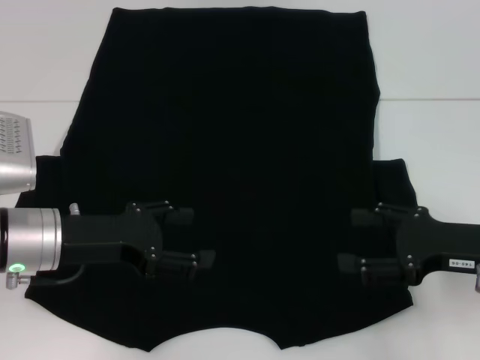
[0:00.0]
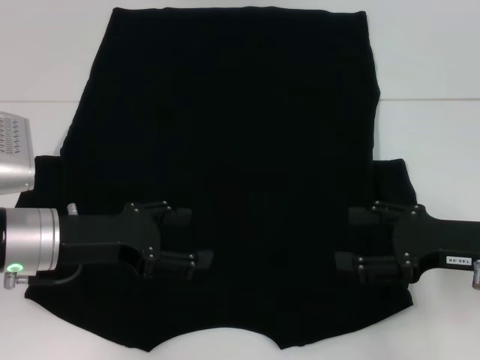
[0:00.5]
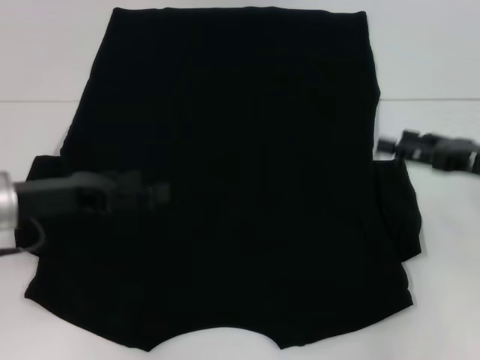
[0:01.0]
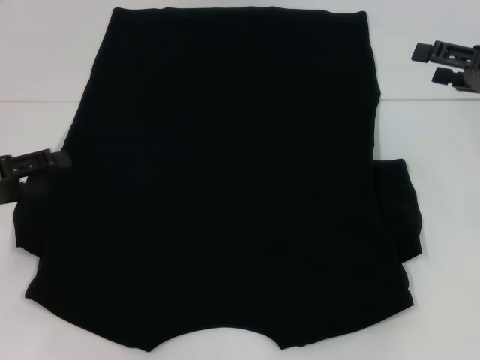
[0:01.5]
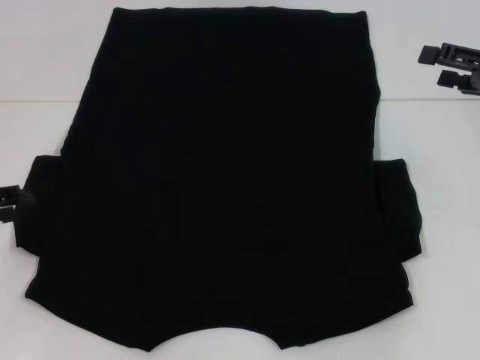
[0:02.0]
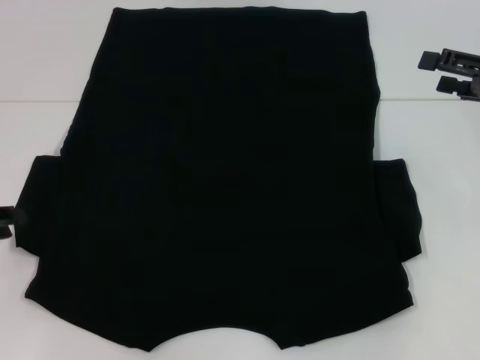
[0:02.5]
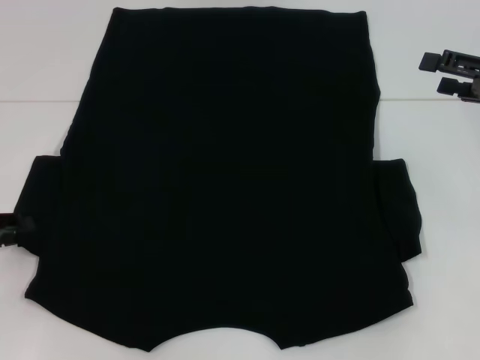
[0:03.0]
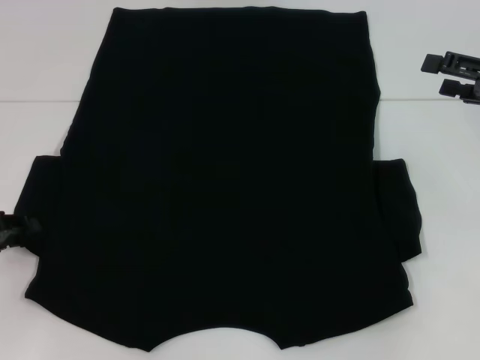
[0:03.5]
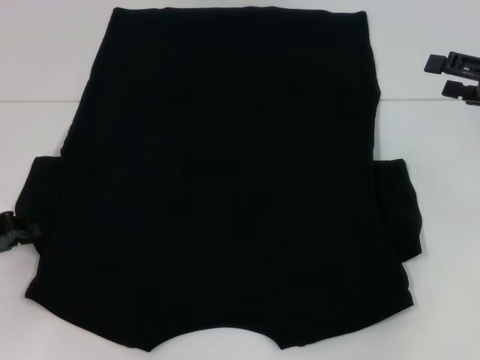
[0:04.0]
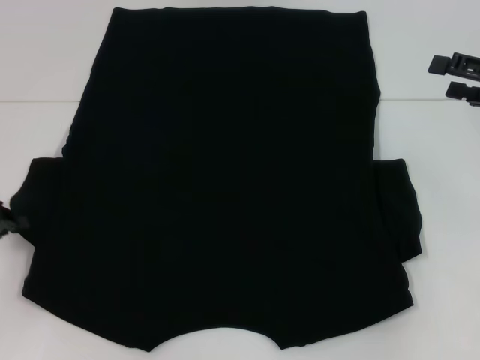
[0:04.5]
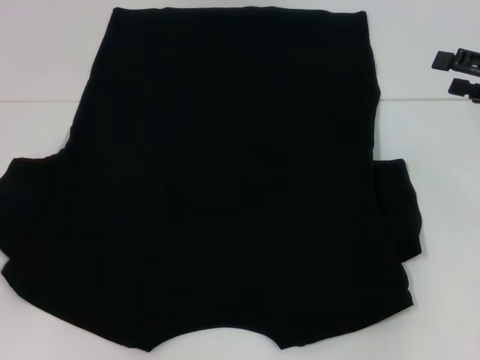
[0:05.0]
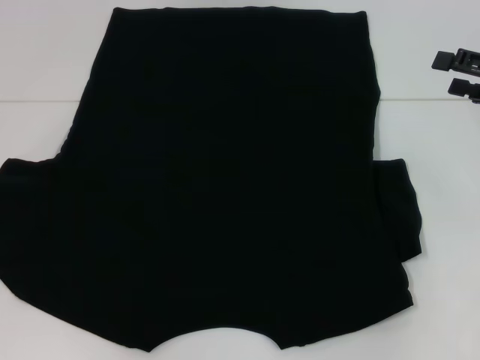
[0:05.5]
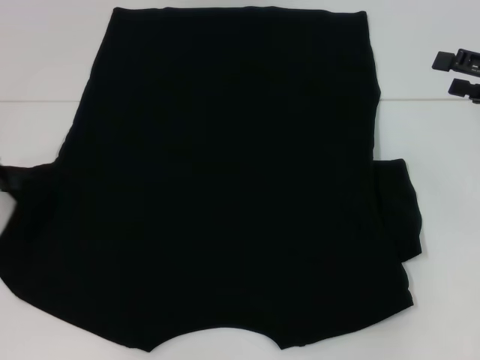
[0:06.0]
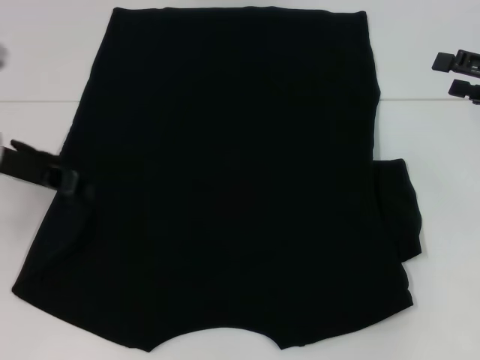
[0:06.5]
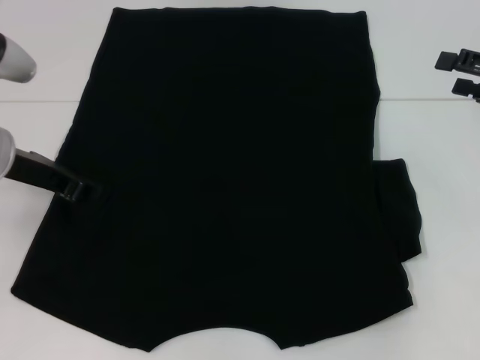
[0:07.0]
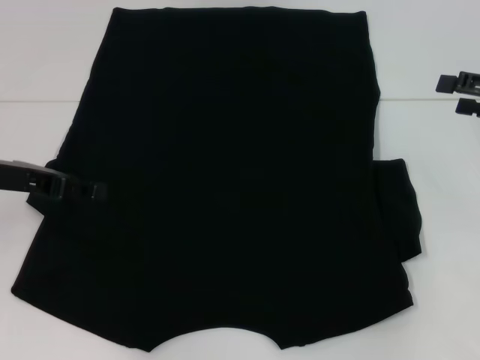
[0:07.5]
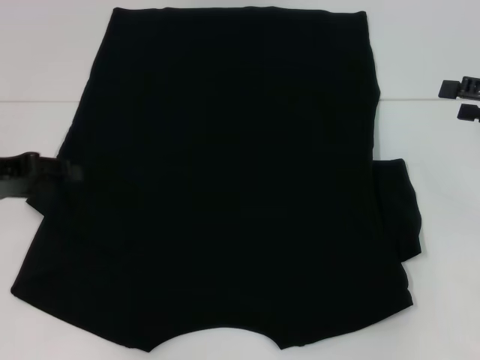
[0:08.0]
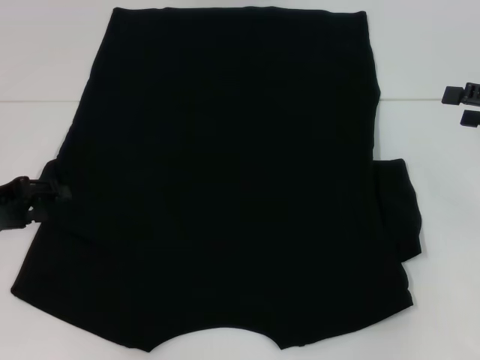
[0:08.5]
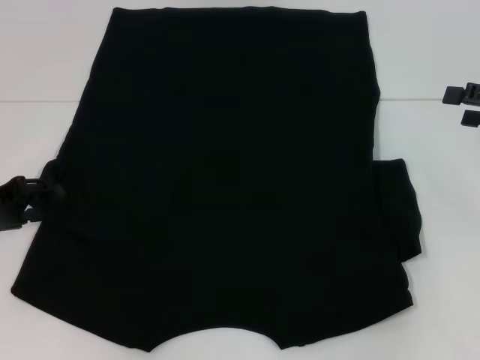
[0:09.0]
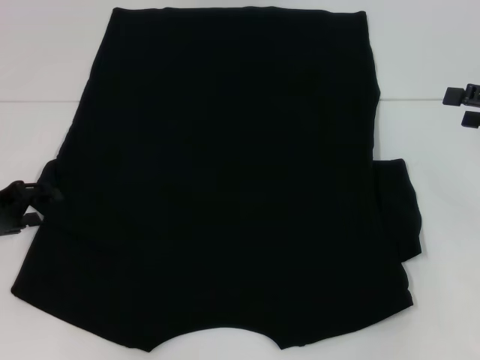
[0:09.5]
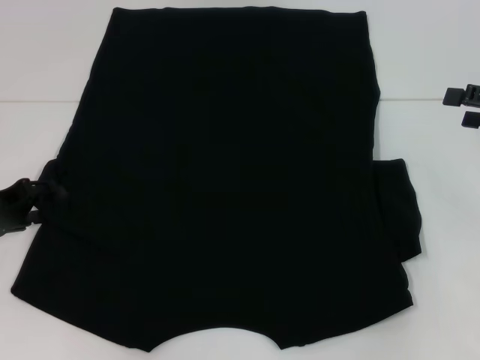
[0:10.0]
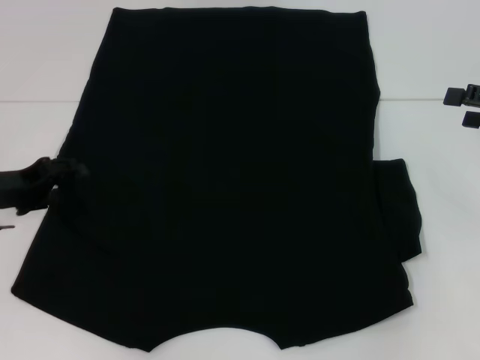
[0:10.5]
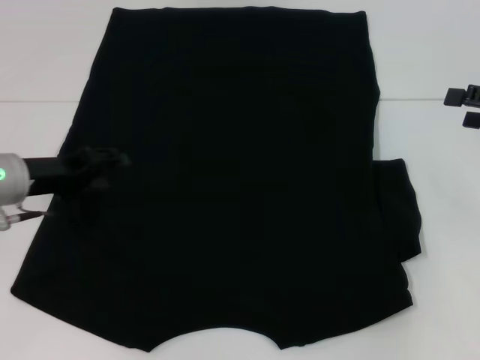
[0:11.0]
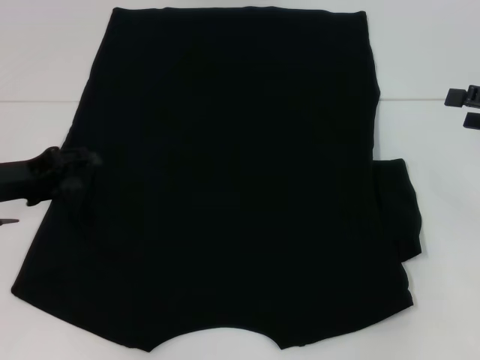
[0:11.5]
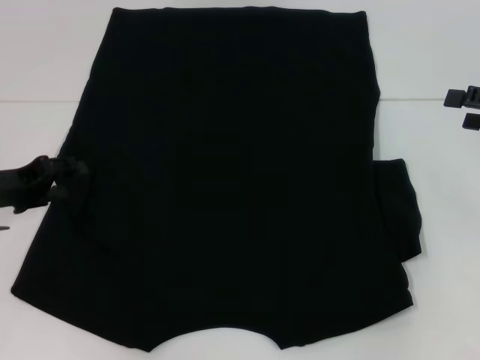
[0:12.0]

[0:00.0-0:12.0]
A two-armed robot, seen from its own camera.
Step, 0:00.0 to 0:07.0: Fold the bottom left sleeve with your left hand.
0:00.0 to 0:02.0: The right gripper moves forward, upward and to the right, about 15 cm. The left gripper is displaced to the left by some 15 cm.
0:02.0 to 0:04.0: The left gripper closes.
0:04.0 to 0:06.0: The left gripper heads upward, covering some 10 cm.
0:06.0 to 0:08.0: The left gripper moves some 10 cm to the right and comes back, and opens up.
0:08.0 to 0:10.0: The left gripper is displaced downward by about 10 cm.

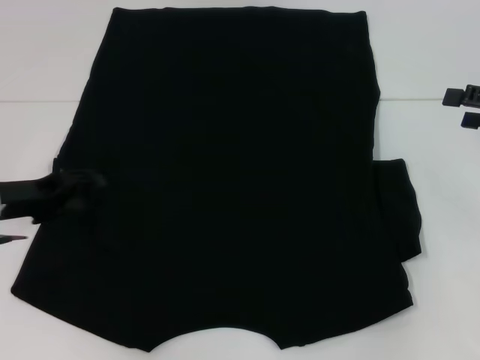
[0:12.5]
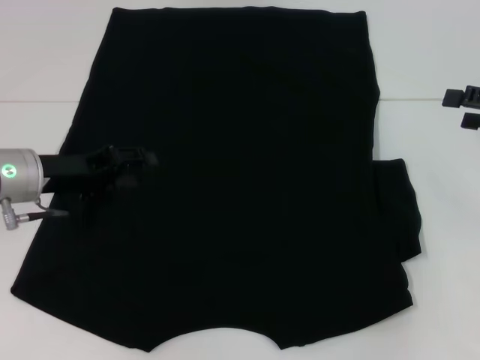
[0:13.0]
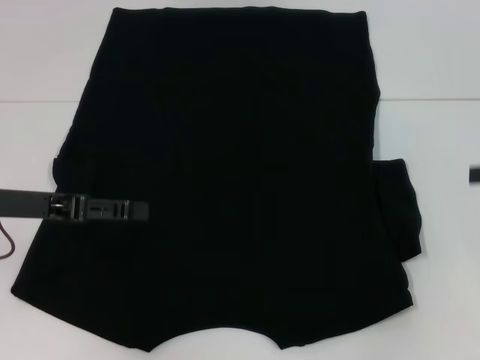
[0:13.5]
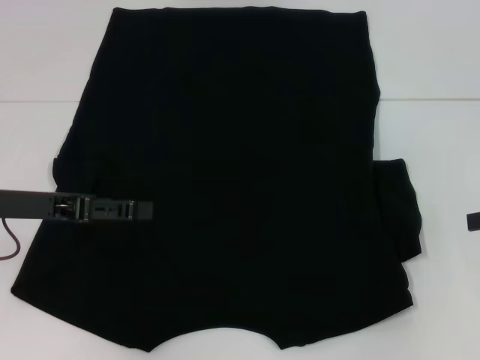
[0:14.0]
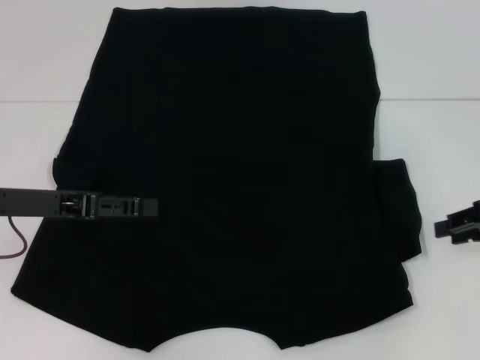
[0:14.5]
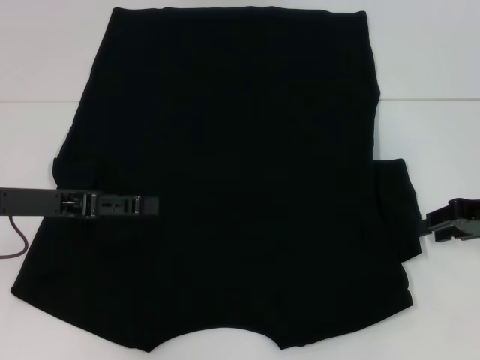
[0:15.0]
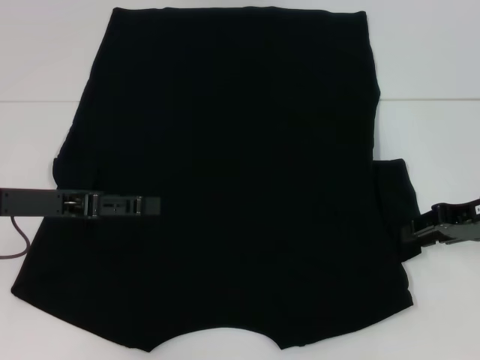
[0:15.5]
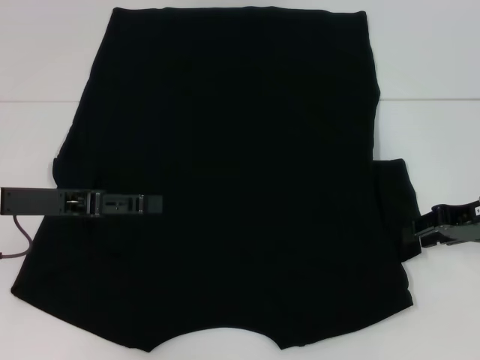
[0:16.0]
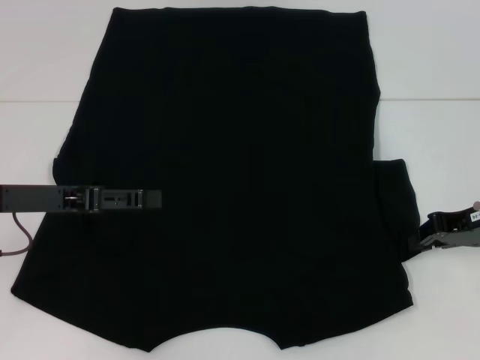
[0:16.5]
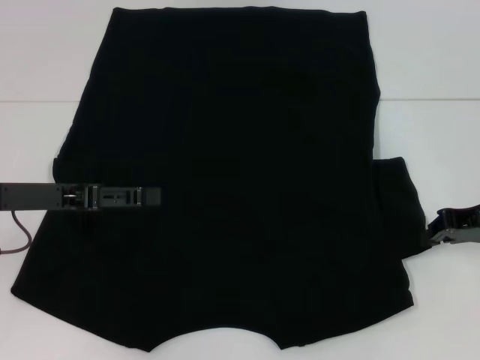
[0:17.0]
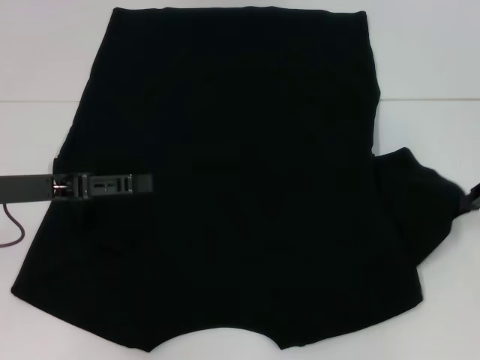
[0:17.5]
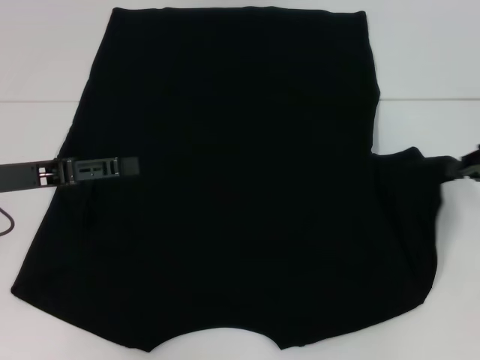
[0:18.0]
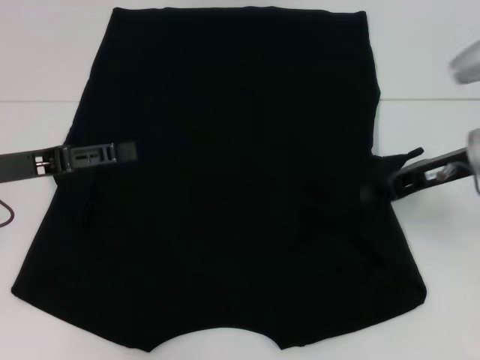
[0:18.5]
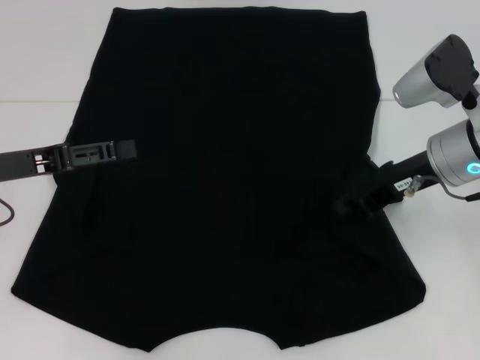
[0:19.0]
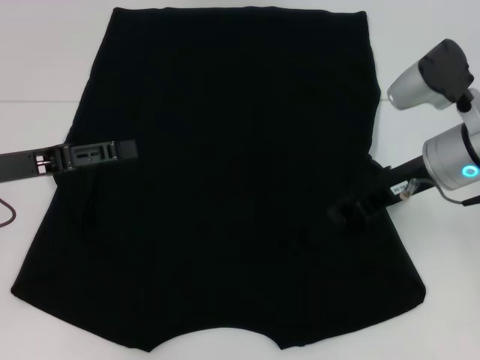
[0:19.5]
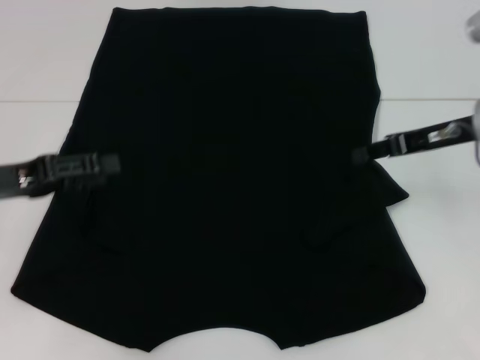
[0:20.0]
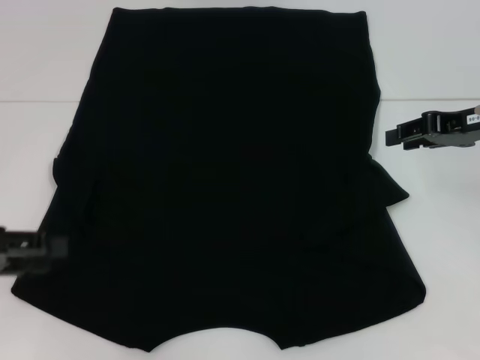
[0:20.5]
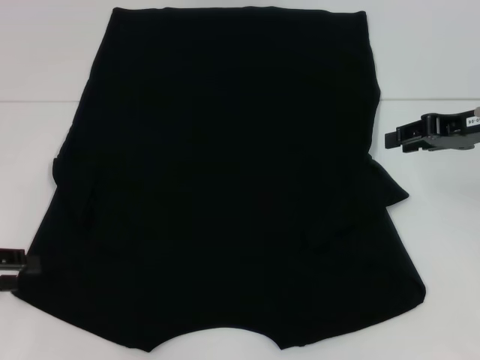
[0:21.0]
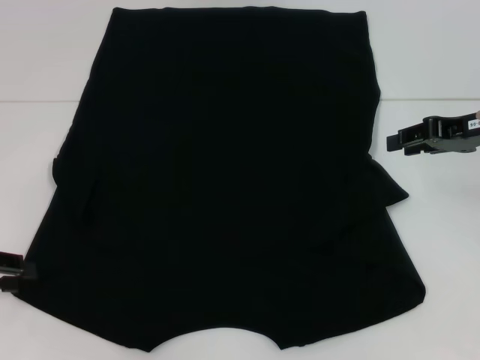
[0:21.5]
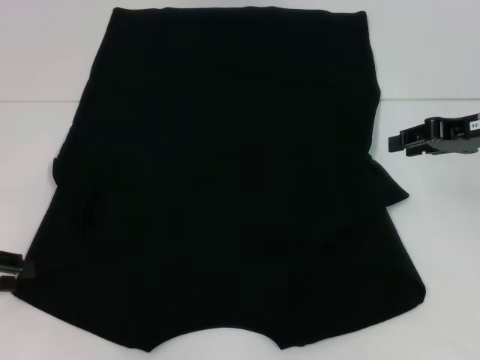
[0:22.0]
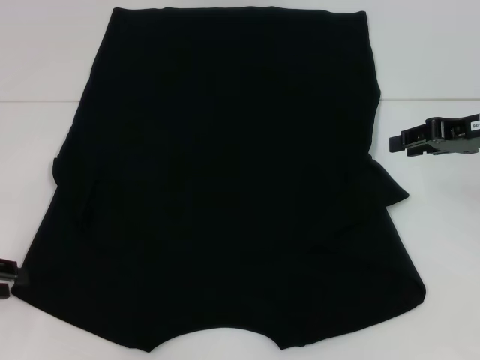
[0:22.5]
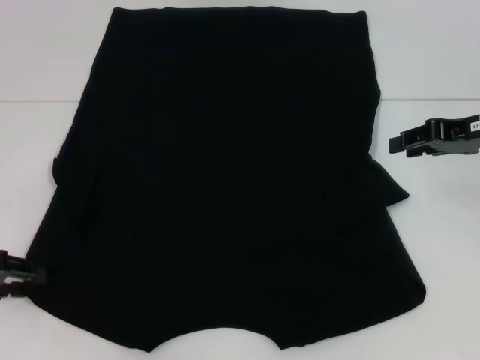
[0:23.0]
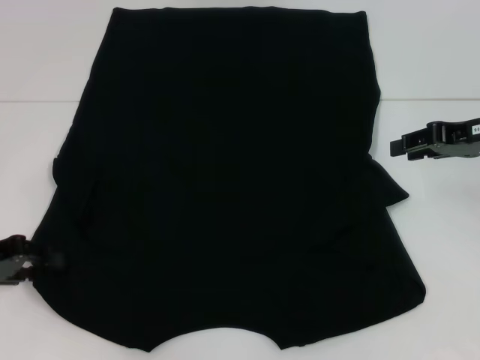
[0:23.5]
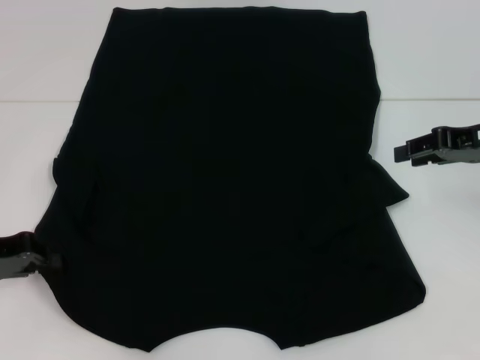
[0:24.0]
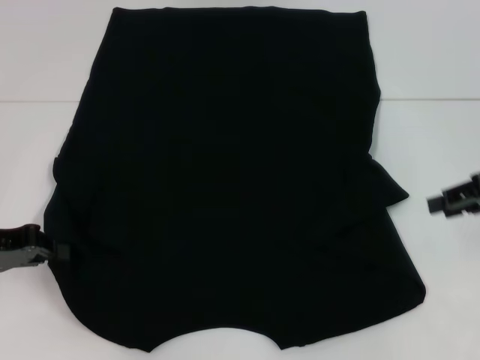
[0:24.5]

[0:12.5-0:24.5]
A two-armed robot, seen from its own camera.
Step, 0:12.5 to 0:19.5: Fold the bottom right sleeve with your right hand.
Step, 0:20.0 to 0:24.0: Grab the bottom left corner with your left hand.
0:12.5 to 0:14.5: The right gripper closes up. The left gripper goes roughly 5 cm upward.
0:14.5 to 0:16.5: The right gripper ends up some 5 cm from where it was.
0:16.5 to 0:18.5: The right gripper shifts by roughly 5 cm.
0:18.5 to 0:20.5: The left gripper travels backward and to the left by approximately 10 cm; the right gripper moves approximately 5 cm, and opens up.
0:22.5 to 0:24.5: The right gripper changes place by roughly 5 cm; the left gripper moves roughly 5 cm, and closes up.

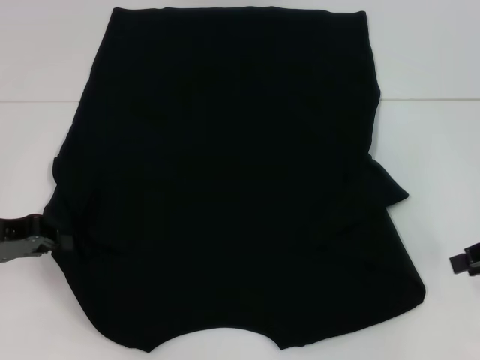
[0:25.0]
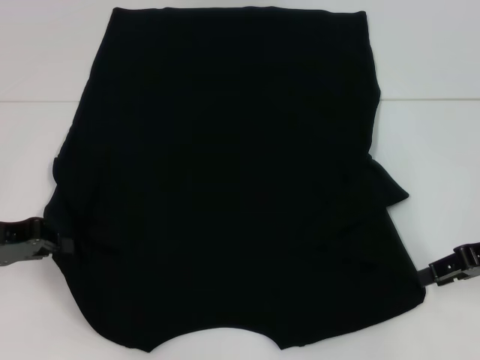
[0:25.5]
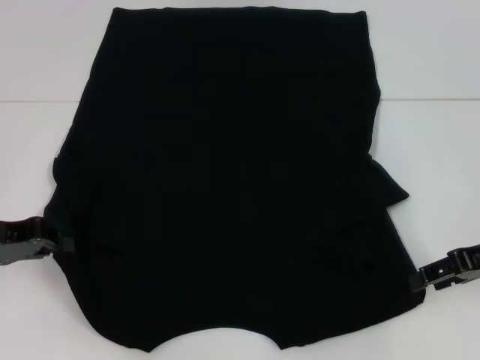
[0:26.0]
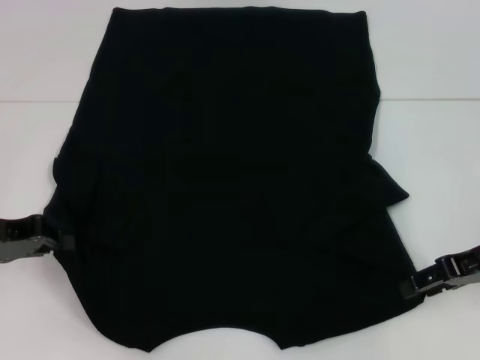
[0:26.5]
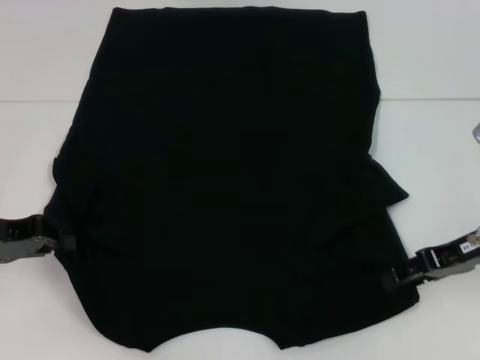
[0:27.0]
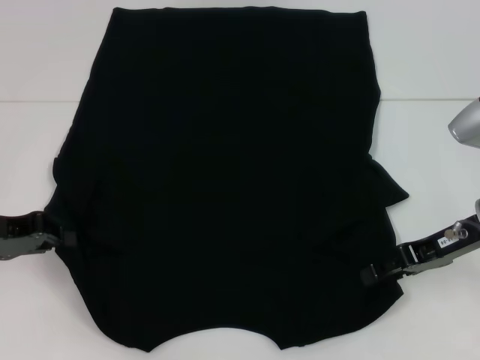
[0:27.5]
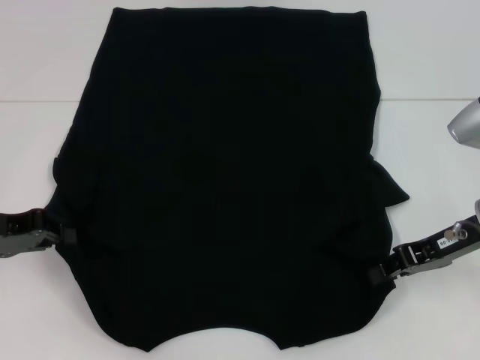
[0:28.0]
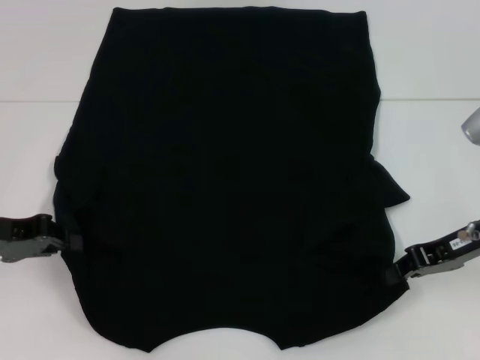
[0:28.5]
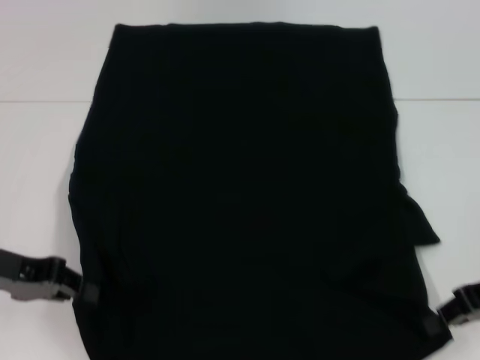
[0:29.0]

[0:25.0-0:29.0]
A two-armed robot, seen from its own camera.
Step, 0:25.0 to 0:28.0: Grab the bottom right corner with your right hand.
0:25.0 to 0:27.0: The right gripper heads to the left, covering about 5 cm.
0:27.0 to 0:29.0: The right gripper closes its fingers.
